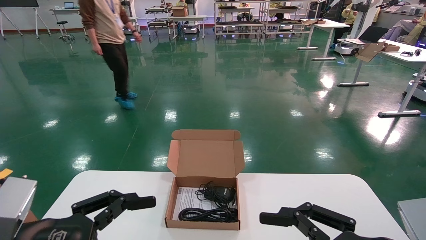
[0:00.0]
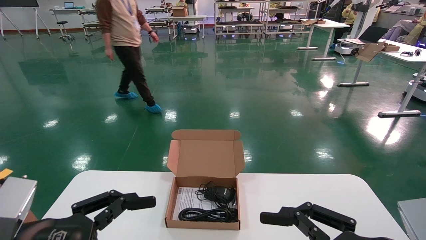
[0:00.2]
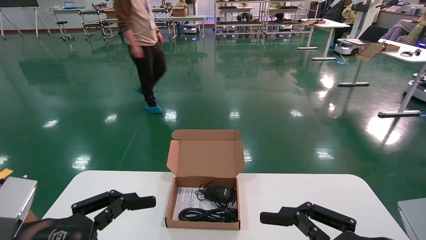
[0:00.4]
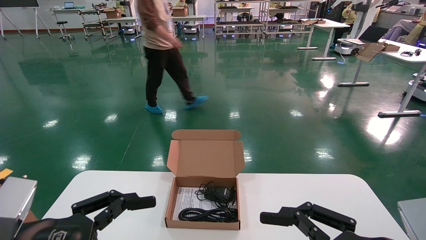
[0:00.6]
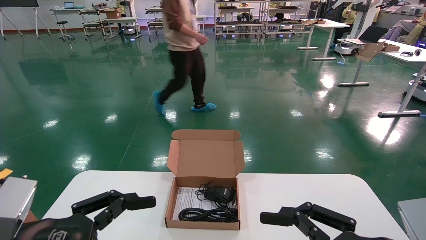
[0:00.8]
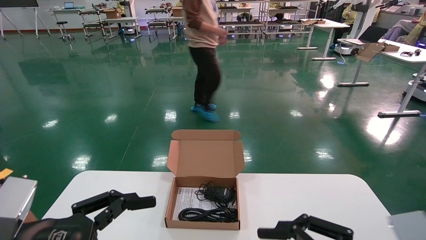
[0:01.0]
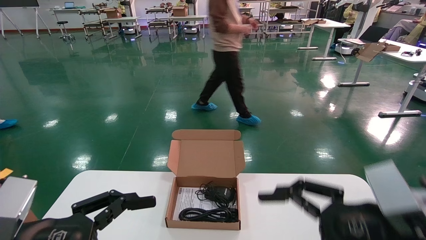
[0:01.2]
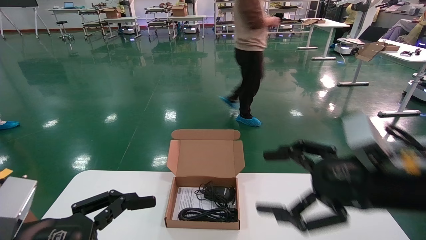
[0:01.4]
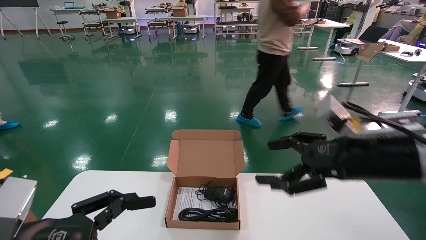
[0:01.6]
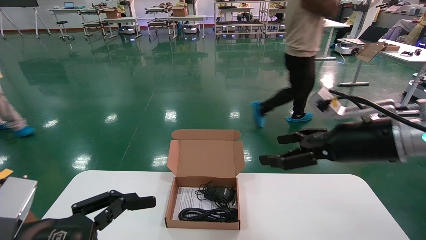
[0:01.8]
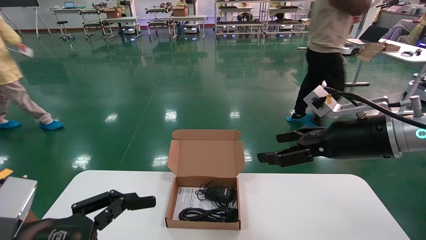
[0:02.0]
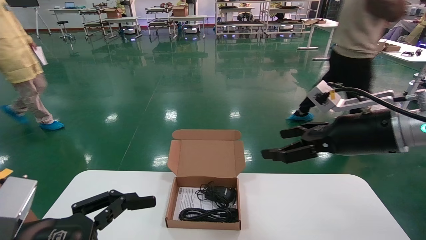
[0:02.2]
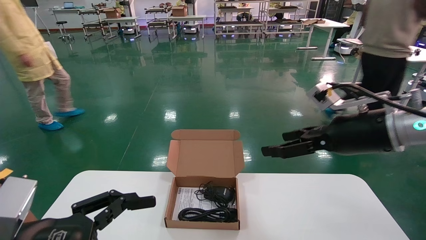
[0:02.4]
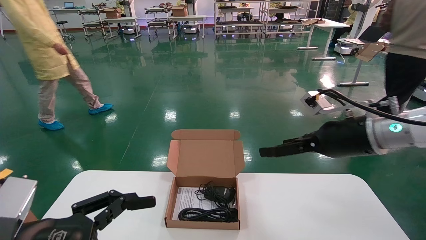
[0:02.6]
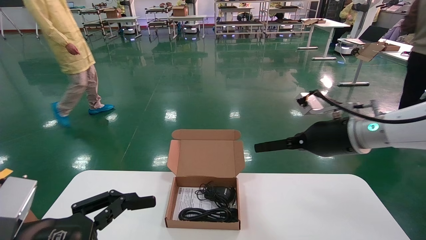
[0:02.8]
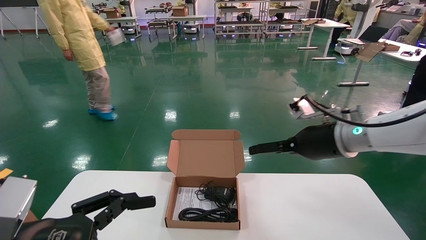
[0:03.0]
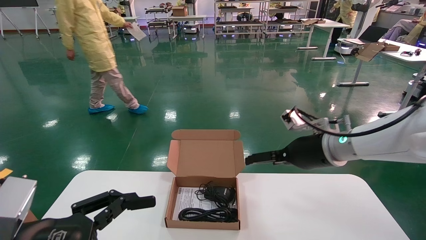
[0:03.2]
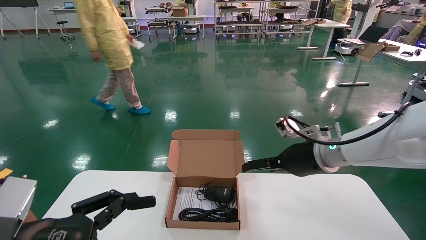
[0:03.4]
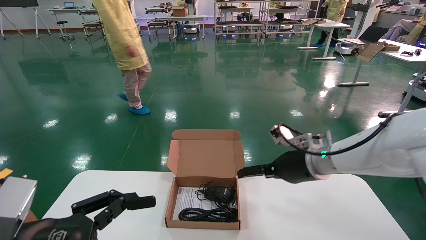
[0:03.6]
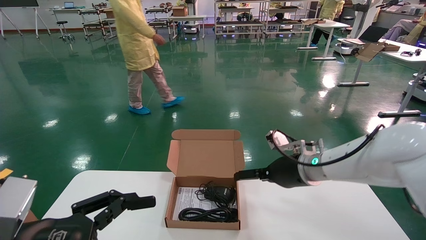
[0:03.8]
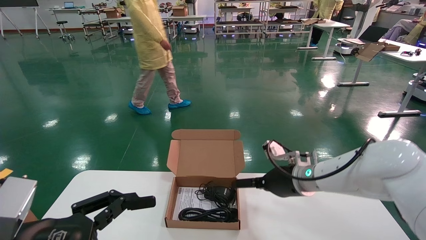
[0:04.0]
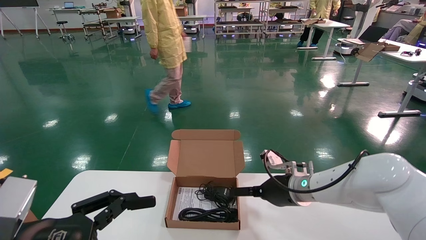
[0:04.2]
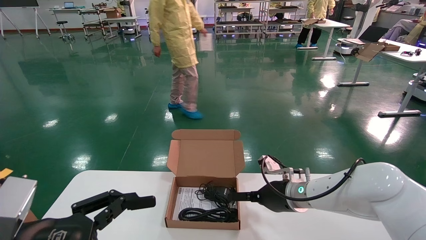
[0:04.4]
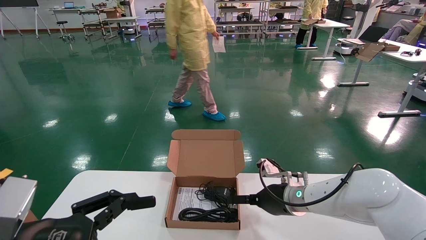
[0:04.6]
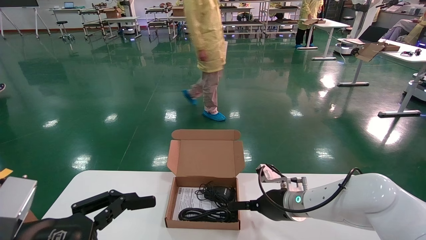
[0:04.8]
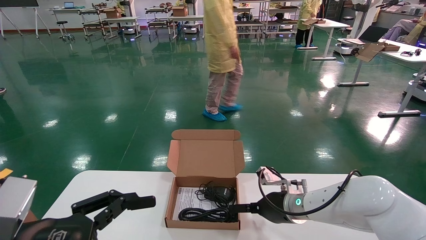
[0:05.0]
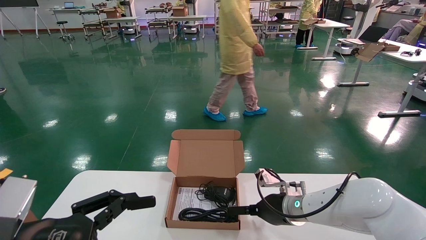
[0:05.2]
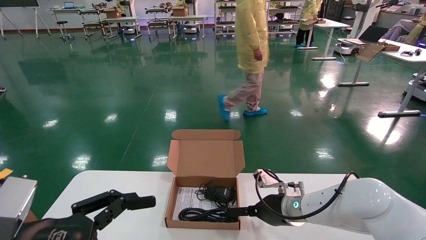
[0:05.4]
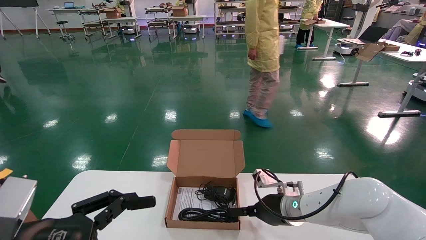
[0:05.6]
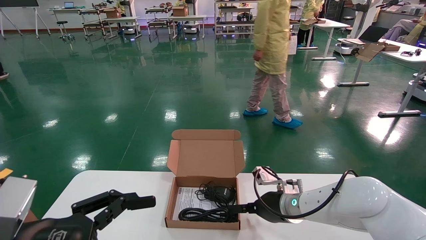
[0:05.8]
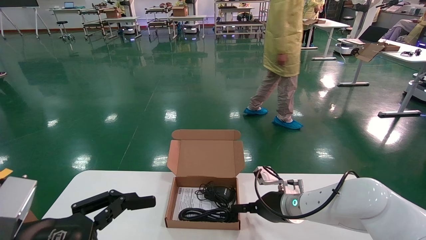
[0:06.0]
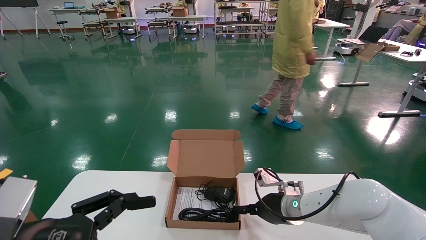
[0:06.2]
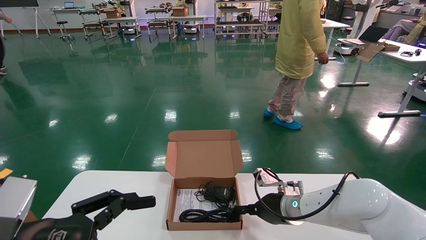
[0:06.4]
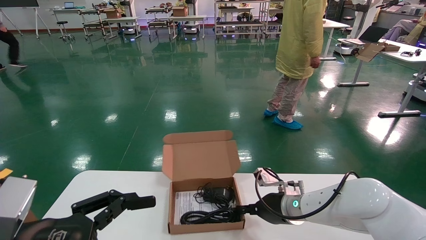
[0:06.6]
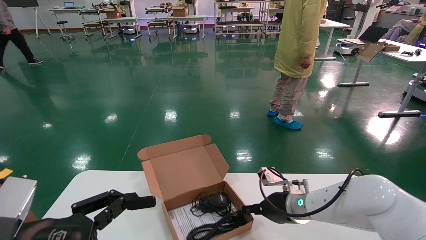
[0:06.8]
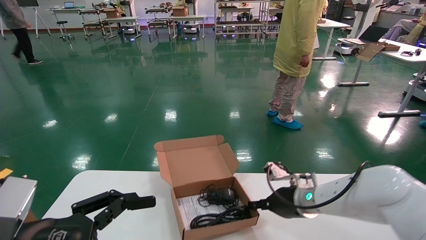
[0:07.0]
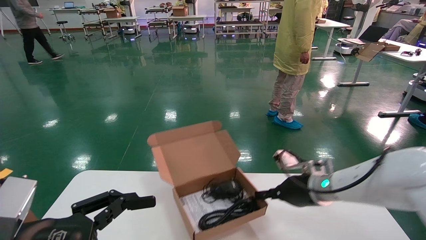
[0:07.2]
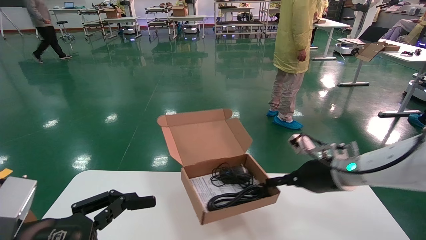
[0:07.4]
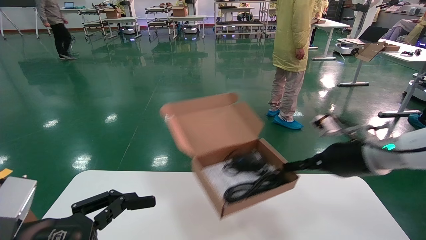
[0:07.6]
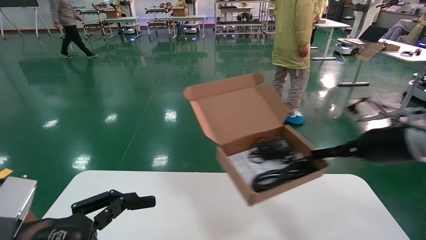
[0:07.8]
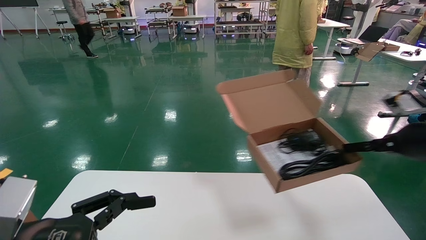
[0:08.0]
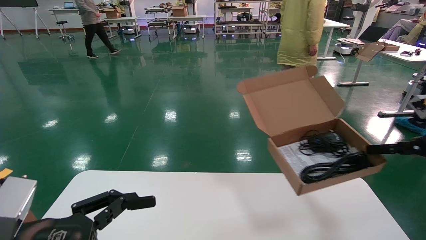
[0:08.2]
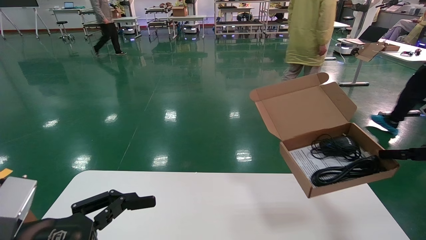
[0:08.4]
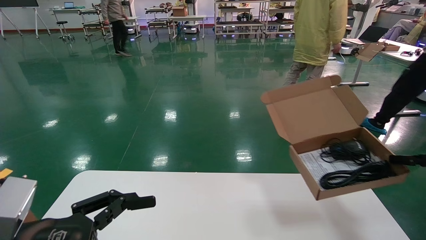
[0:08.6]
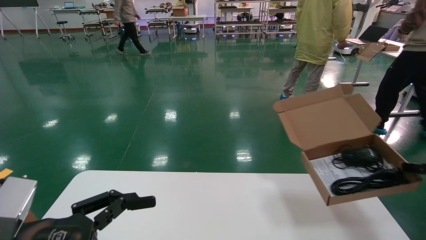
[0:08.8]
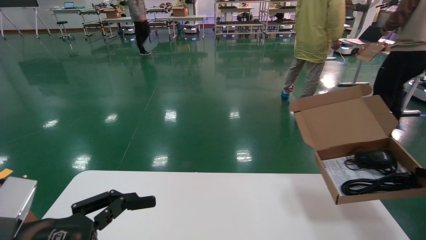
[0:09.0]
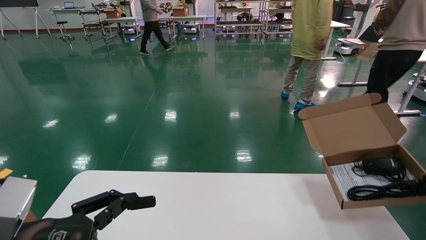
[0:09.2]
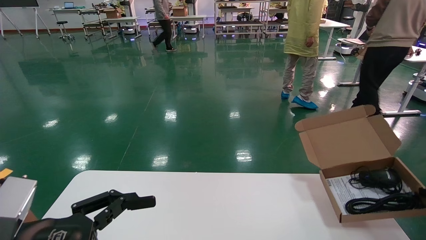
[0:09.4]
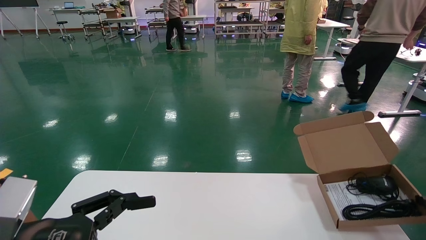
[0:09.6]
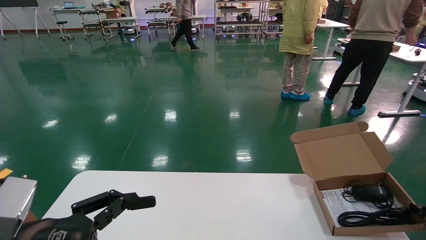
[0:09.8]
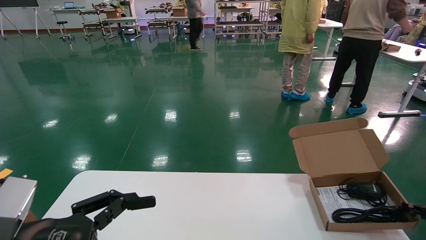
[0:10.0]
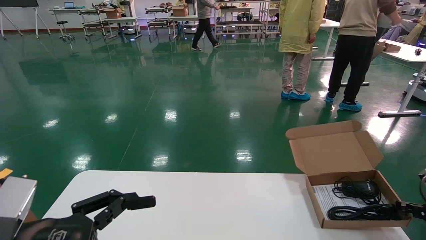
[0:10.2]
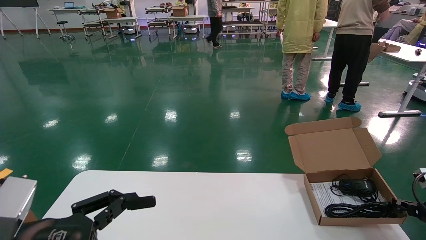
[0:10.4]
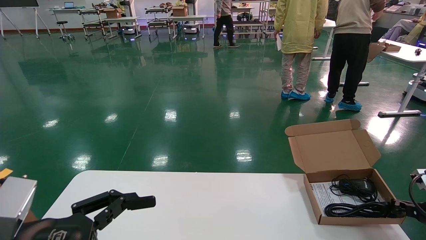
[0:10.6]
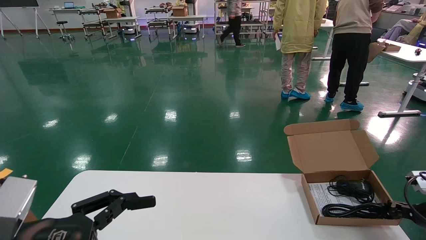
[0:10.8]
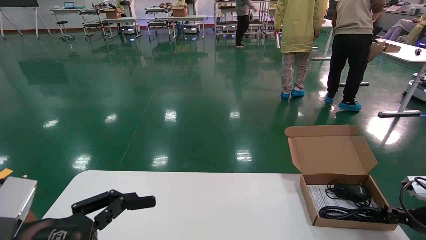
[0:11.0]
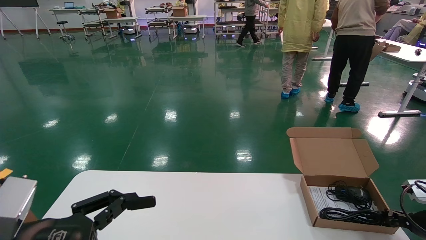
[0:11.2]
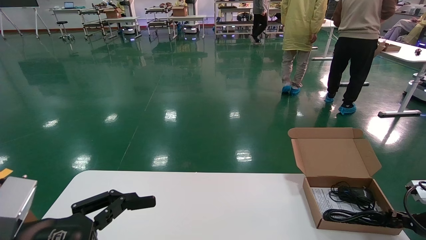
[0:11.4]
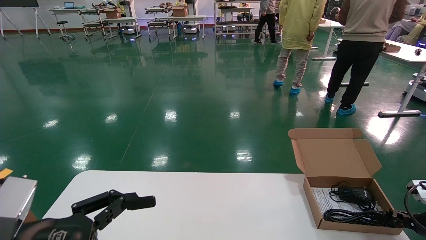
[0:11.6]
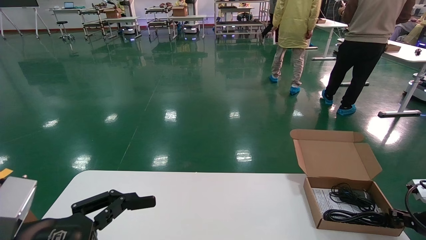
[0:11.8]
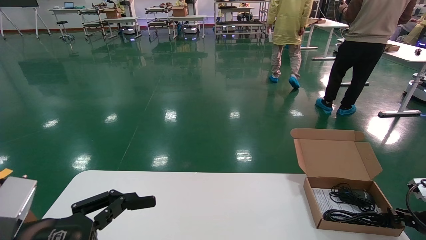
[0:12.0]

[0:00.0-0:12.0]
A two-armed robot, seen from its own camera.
Task of the whole recording: move the position of the storage box with accessories on the table.
Step, 0:01.4 to 0:06.8: Grab and pick up the open mouse box from the accessory packaging area.
0:00.0 to 0:01.6: The right gripper heads forward and upward, covering about 15 cm.
0:01.6 to 0:03.0: The right gripper is displaced forward by about 10 cm.
0:03.0 to 0:04.4: The right gripper shifts approximately 15 cm downward and to the left.
0:04.4 to 0:06.0: The grippers make only small movements.
0:06.0 to 0:07.6: The right gripper heads upward, to the right and backward, covering roughly 20 cm, and closes.
0:07.6 to 0:09.0: The right gripper travels to the right by some 20 cm.
0:09.0 to 0:10.4: The right gripper heads downward, covering some 10 cm.
0:10.4 to 0:12.0: The grippers make only small movements.

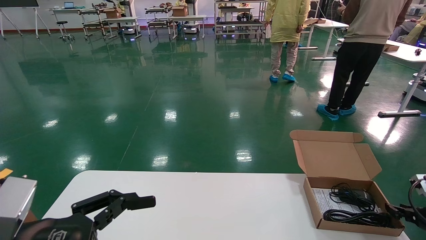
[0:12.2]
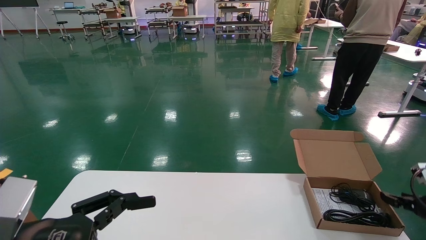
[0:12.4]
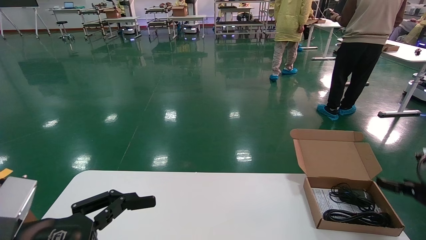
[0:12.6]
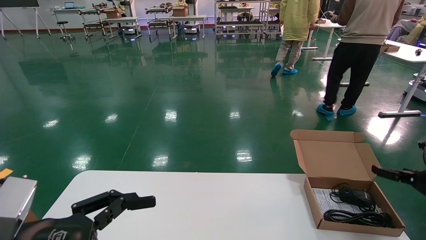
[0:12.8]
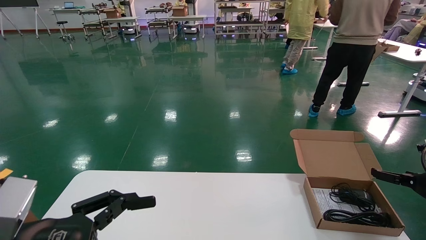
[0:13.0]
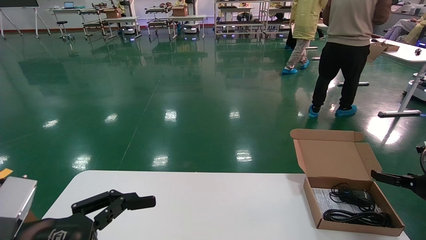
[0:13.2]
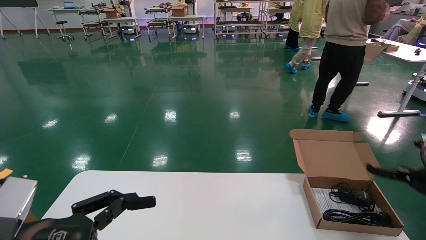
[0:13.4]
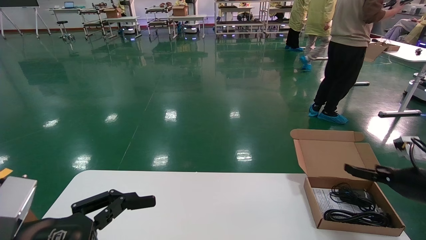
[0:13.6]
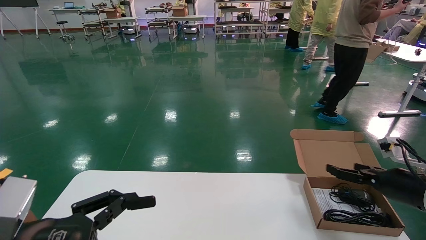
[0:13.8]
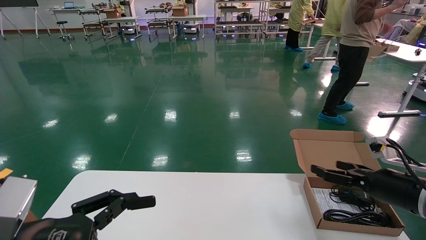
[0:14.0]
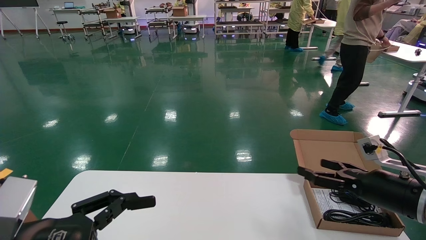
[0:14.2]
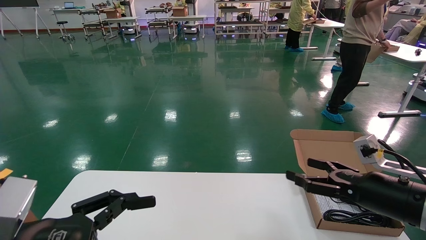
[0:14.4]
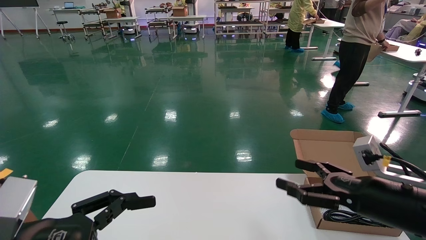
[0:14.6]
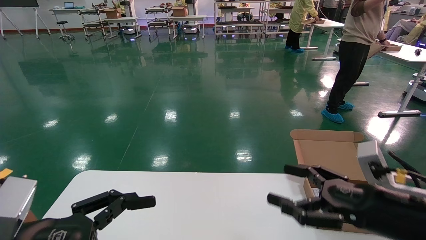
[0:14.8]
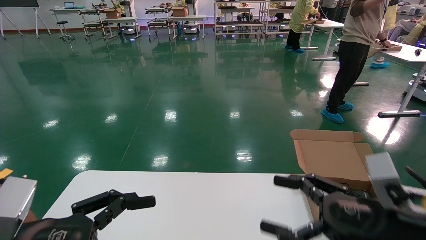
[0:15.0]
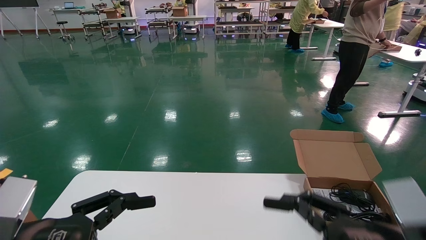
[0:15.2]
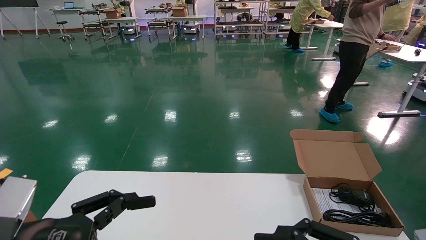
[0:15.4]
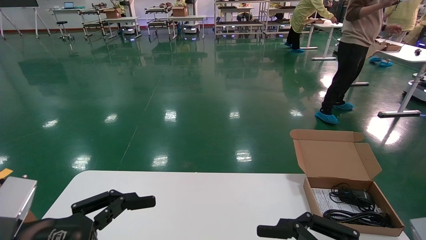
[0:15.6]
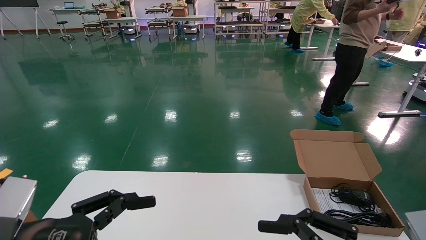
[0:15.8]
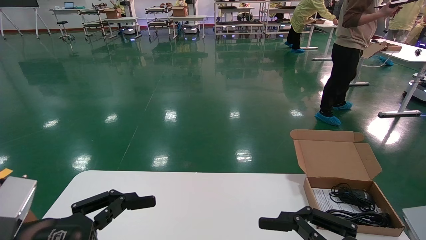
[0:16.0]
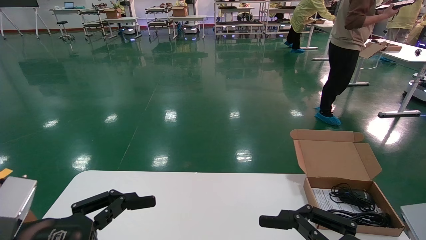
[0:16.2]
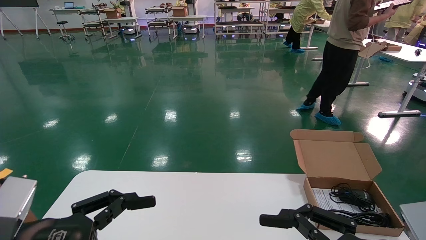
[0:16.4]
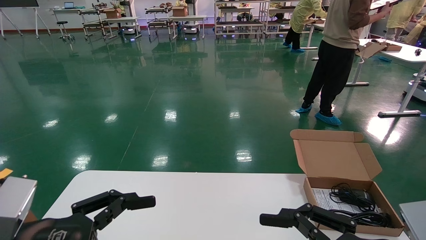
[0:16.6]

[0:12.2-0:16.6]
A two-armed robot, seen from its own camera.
Task of the whole recording: move the position of the storage box with accessories on the table.
0:12.2 to 0:13.6: The right gripper goes about 10 cm upward and to the left, and opens.
0:13.6 to 0:15.2: The right gripper moves backward and to the left, approximately 25 cm.
0:15.2 to 0:16.6: The grippers stay close to where they were, moving slightly.
